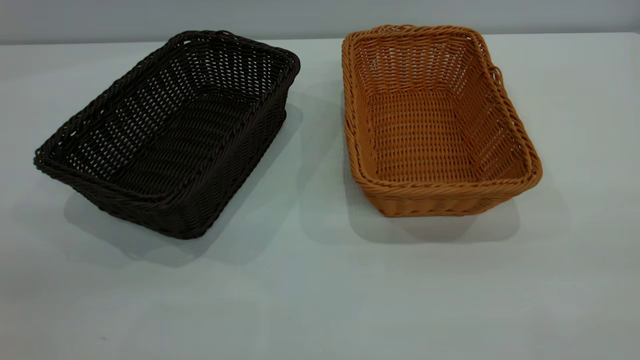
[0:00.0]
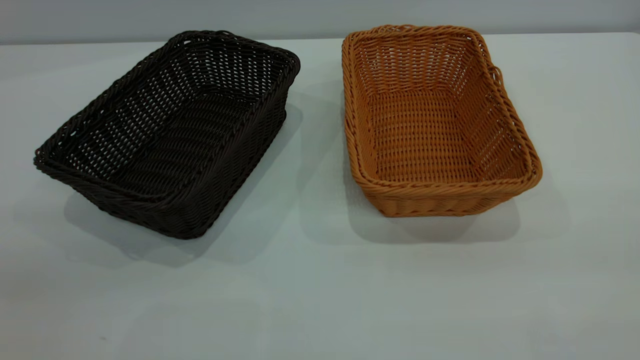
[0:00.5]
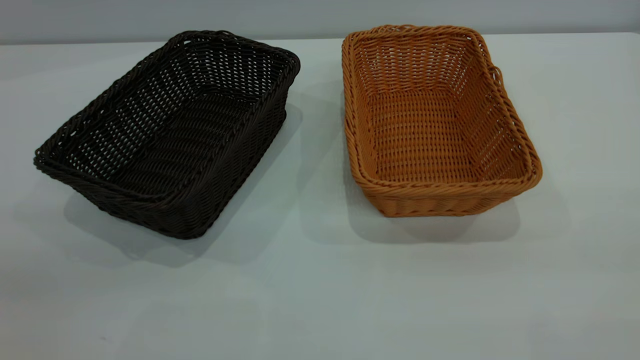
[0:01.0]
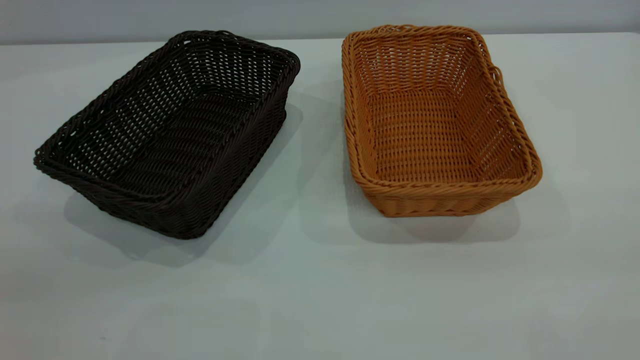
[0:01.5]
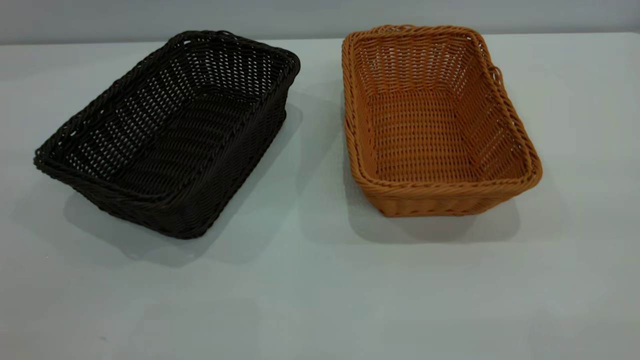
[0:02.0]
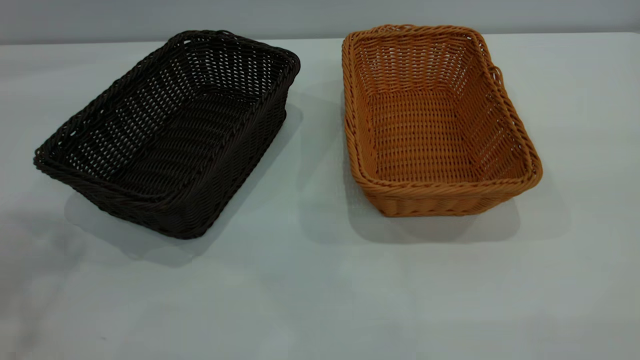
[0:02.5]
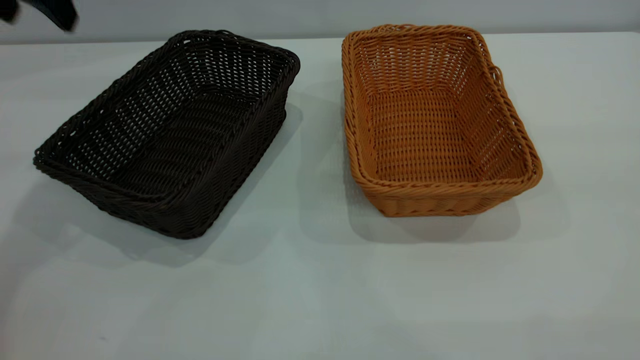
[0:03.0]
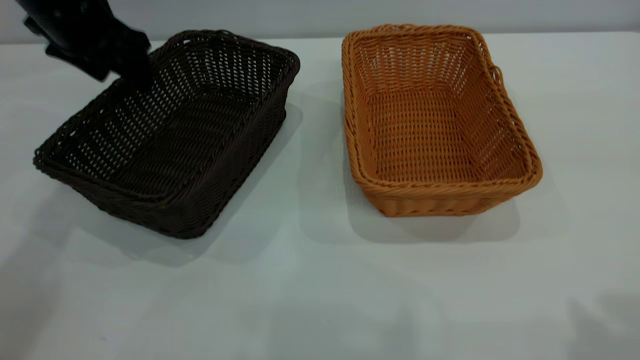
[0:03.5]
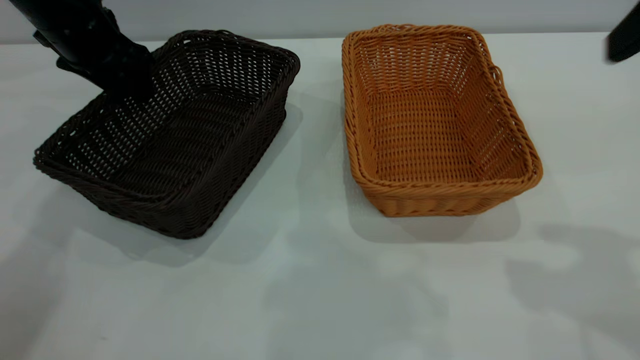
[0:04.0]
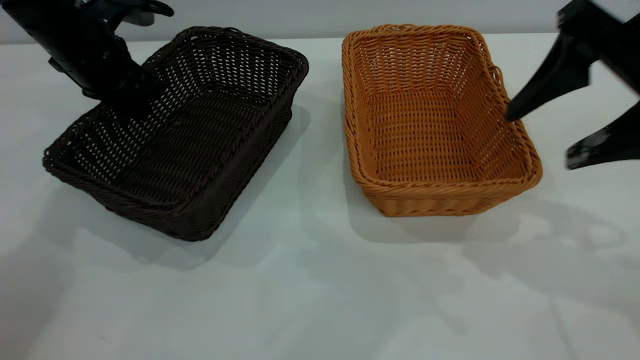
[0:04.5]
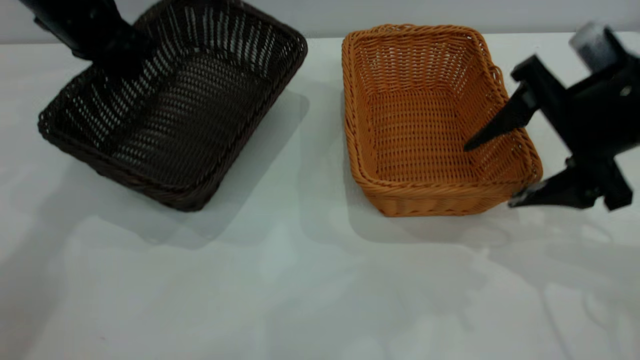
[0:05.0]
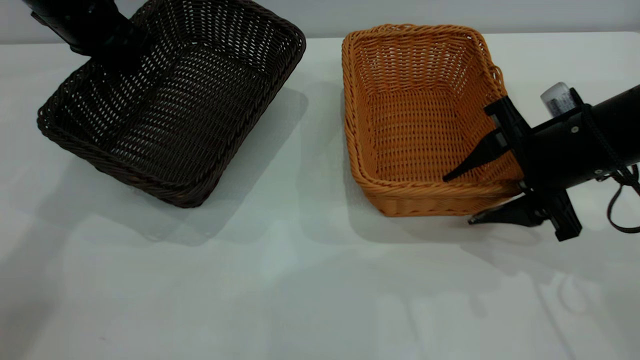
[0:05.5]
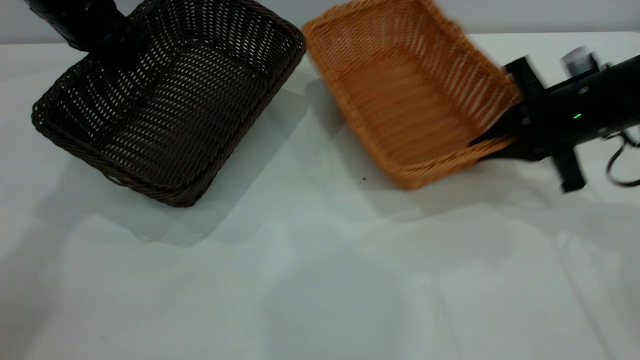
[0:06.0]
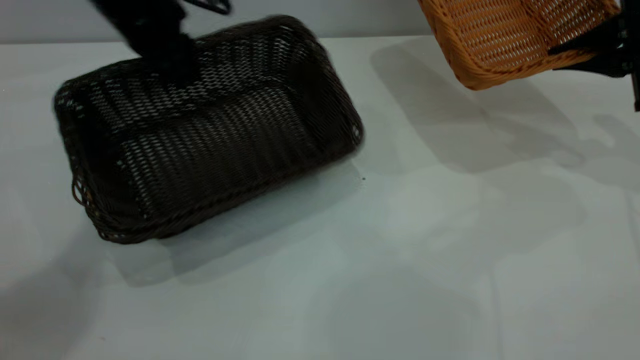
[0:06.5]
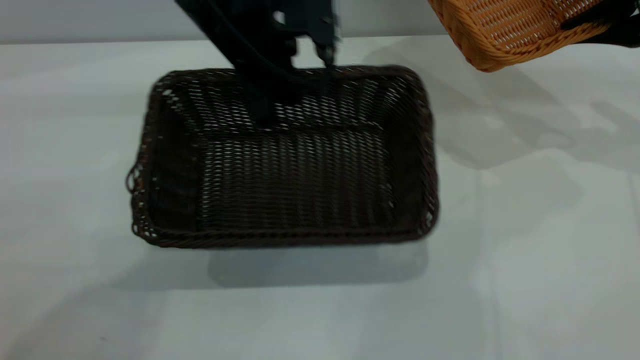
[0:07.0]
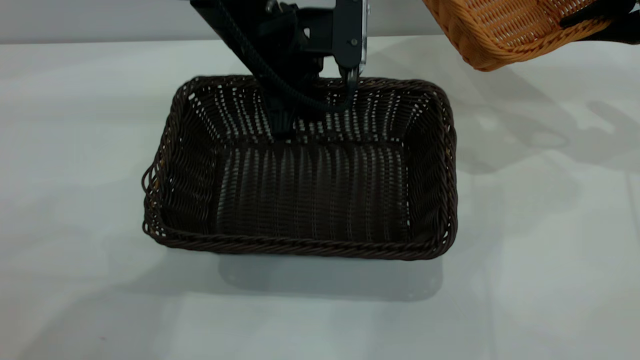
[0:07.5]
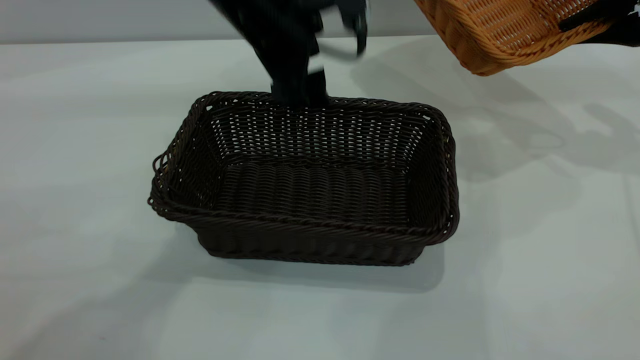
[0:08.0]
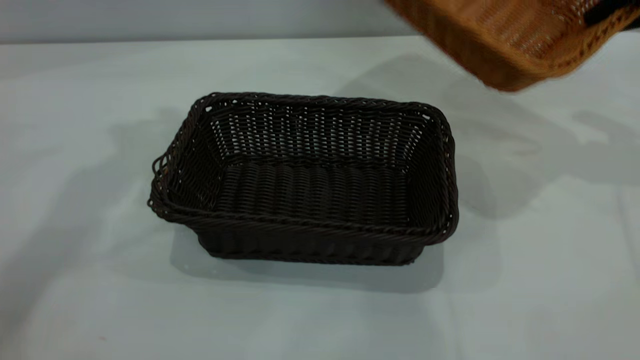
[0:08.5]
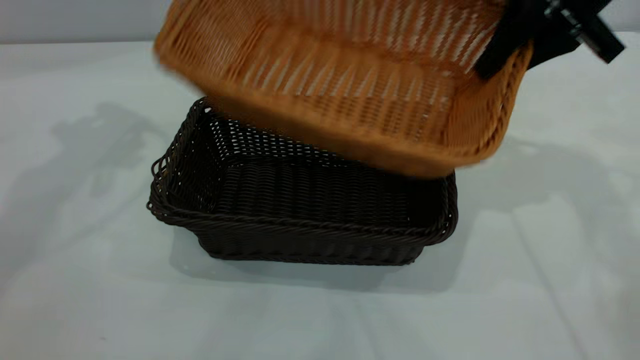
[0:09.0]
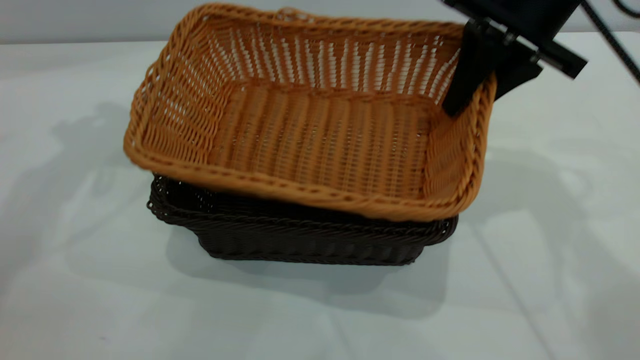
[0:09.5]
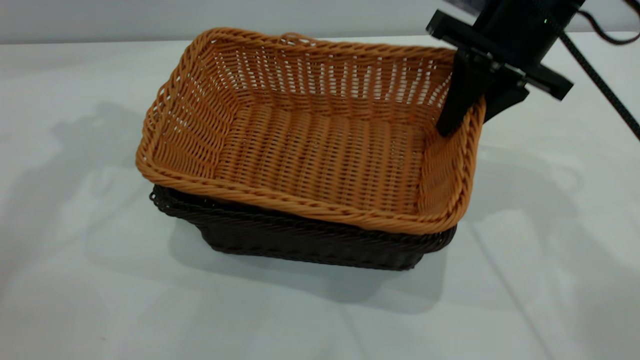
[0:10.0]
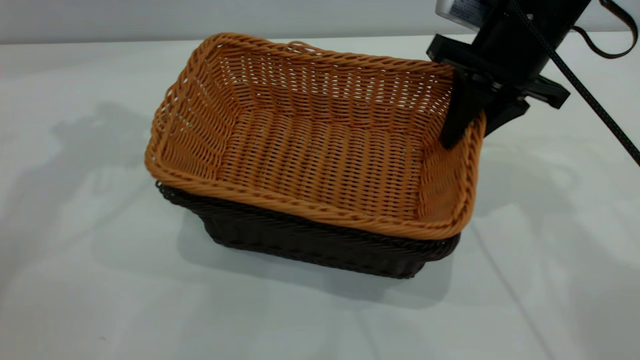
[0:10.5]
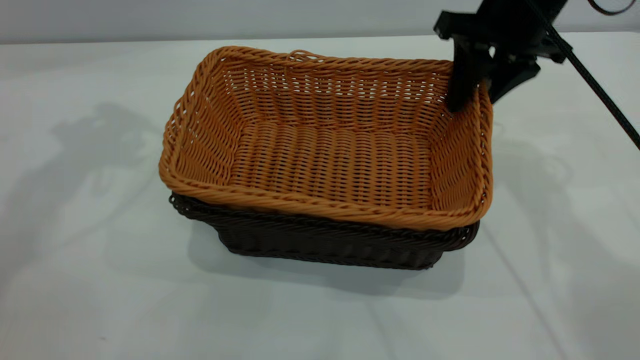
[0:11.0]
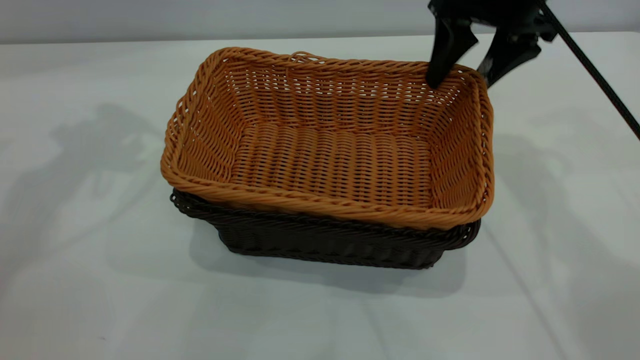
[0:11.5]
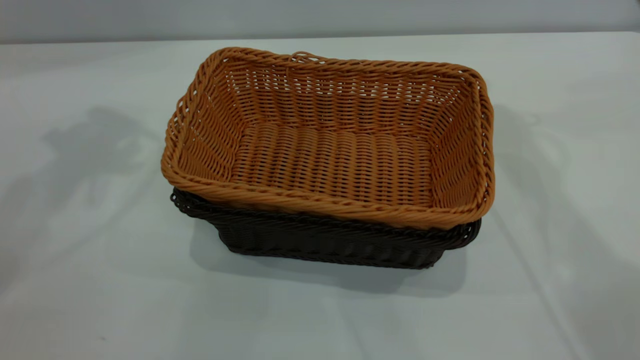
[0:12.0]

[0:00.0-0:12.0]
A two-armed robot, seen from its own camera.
Task of the whole recording: the left gripper grasp the black basket and place it in the center of the table, the right gripper grasp the brown basket and place it inside the black one.
Step, 0:00.0 to 0:06.0: Pick up the light basket with the right gripper.
Step, 0:06.5 to 0:08.0: Move the dark basket to the center of view.
Step, 0:08.5 to 0:11.5: Place the light basket on the dark basket.
0:02.0 to 0:04.0: The left gripper is displaced forward and downward by roughly 40 cm.
0:04.0 to 0:06.0: The left gripper closes its fingers. The right gripper heads downward and forward, covering about 25 cm, and closes up.
0:06.0 to 0:08.0: The left gripper travels to the right by about 20 cm, and opens its fingers. Meanwhile the right gripper is displaced to the right, upward and forward by some 15 cm.
0:08.0 to 0:10.0: The right gripper heads to the left, covering about 20 cm. The left gripper goes some 25 cm to the left and upward.
0:10.0 to 0:12.0: The right gripper is displaced upward and forward by roughly 15 cm, and opens its fingers.

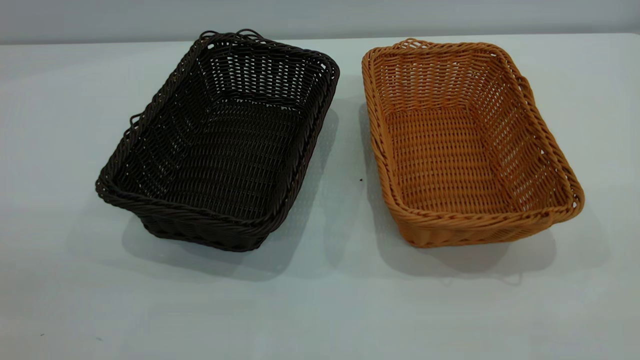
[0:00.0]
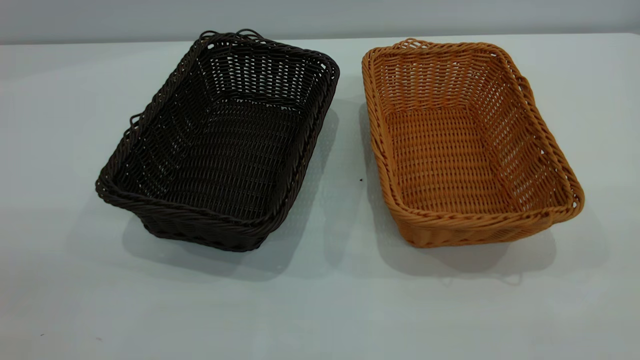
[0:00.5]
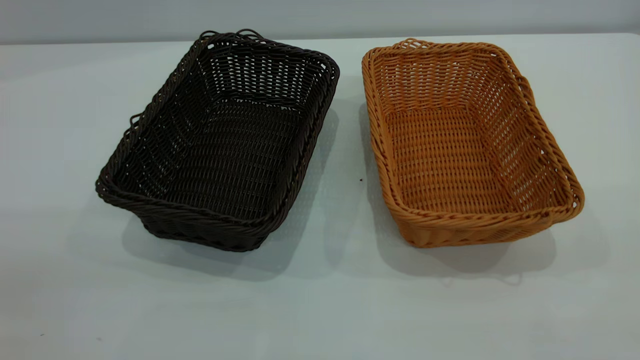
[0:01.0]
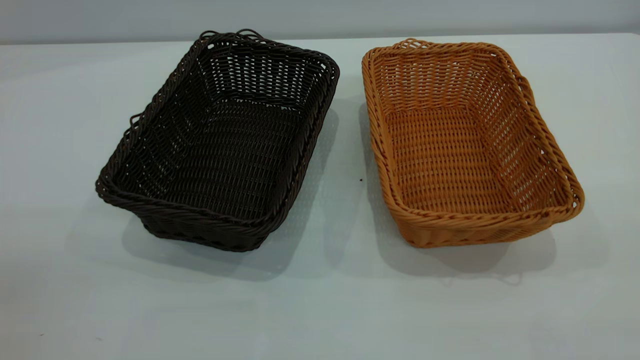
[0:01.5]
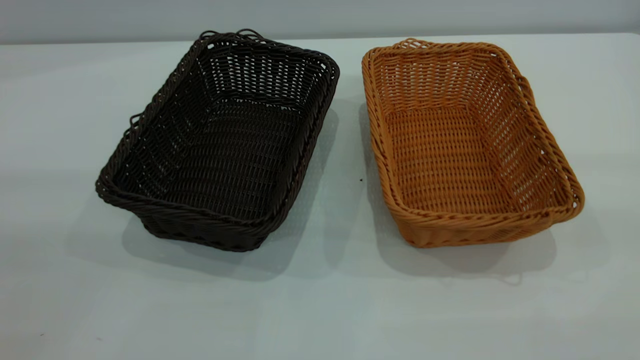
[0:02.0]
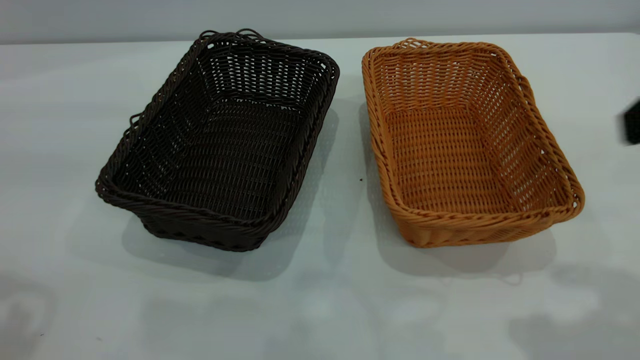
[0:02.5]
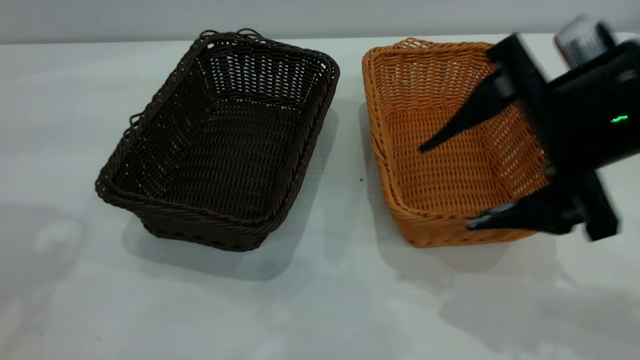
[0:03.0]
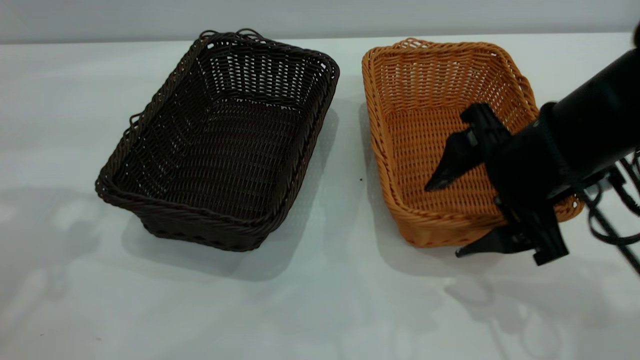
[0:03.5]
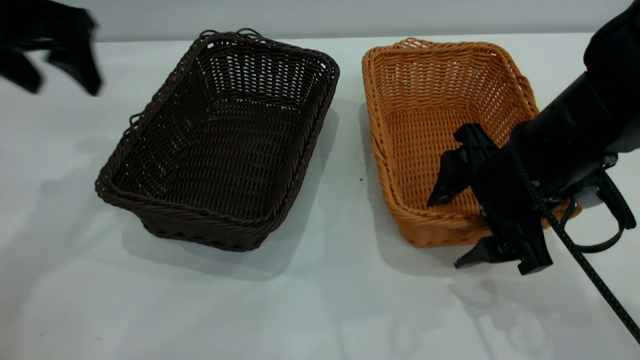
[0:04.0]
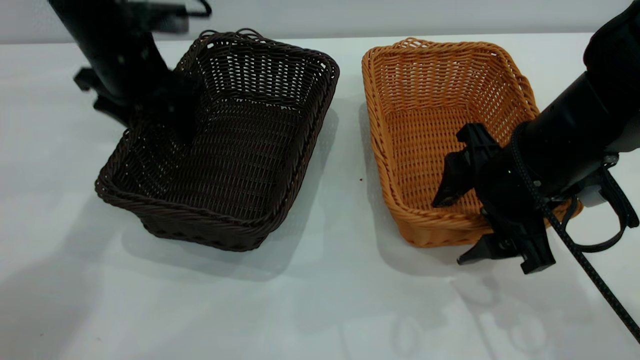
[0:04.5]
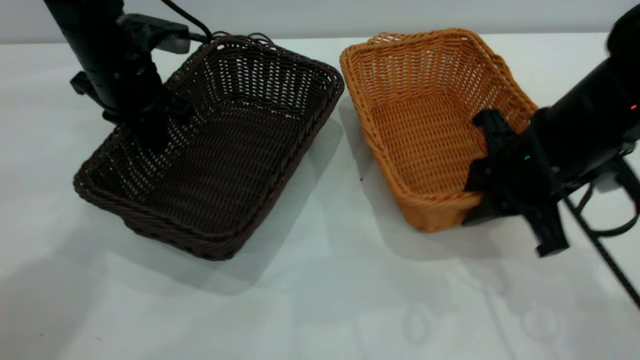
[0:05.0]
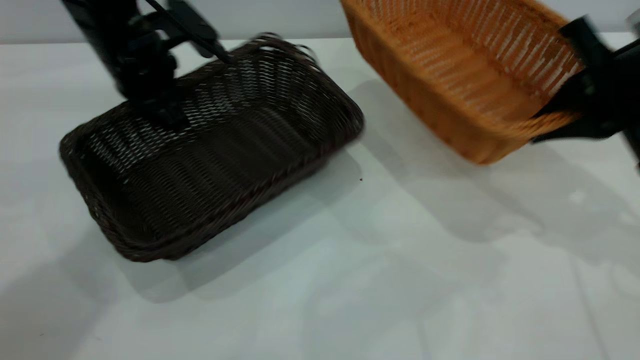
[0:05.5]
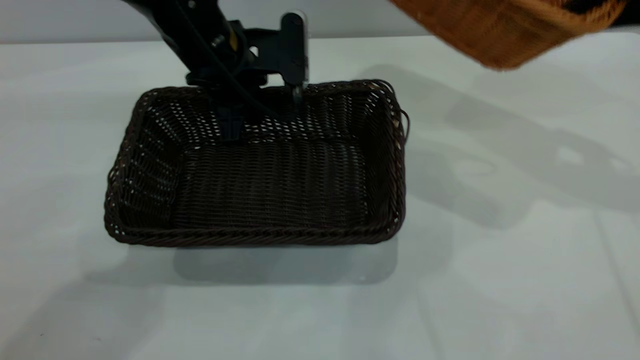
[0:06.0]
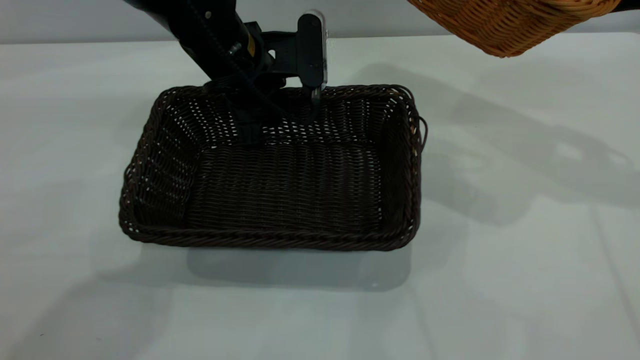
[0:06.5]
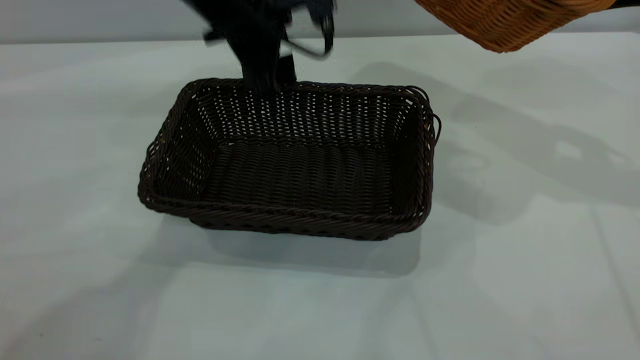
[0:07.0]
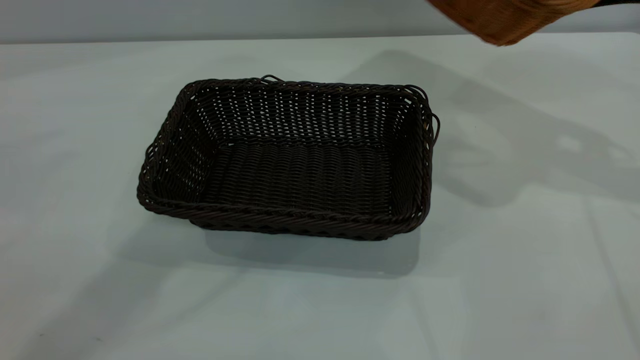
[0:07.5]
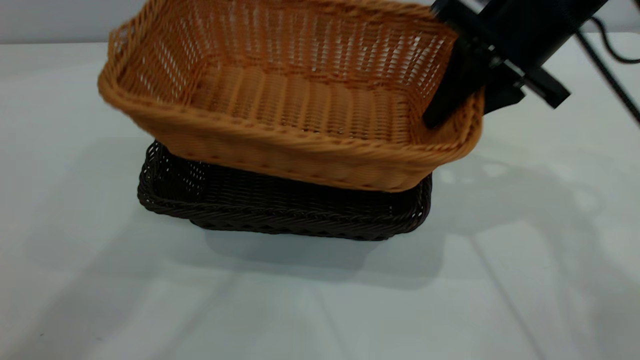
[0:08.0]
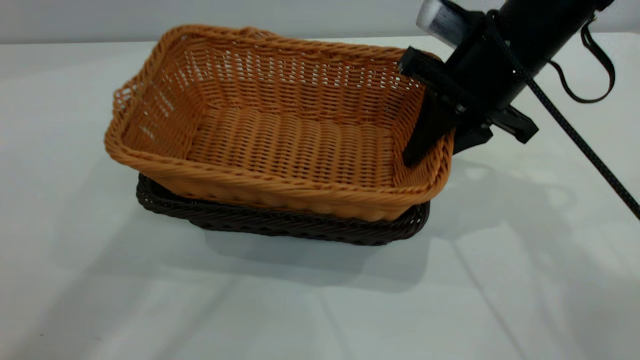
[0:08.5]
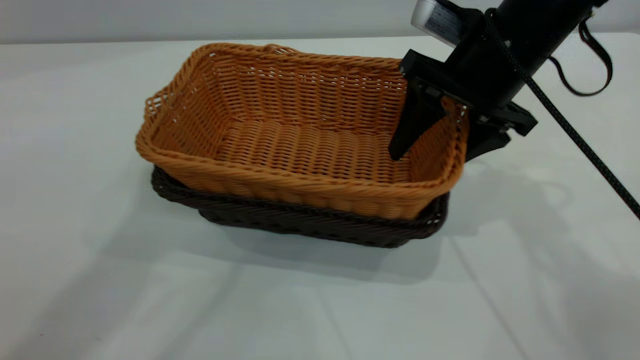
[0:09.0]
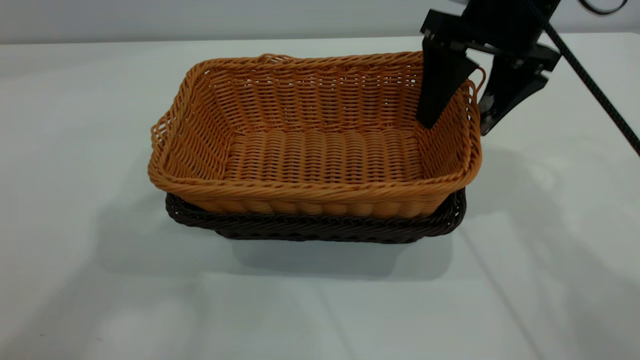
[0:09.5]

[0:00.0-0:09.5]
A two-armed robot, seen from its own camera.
Task of the whole recording: the left gripper grasp the black basket and place it in the center of the table, the right gripper grasp the brown basket and place it inside the black one.
Step, 0:00.0 to 0:05.0: Pick up the light basket with the right gripper.
Step, 0:05.5 to 0:07.0: Move the dark basket to the center of view.
0:02.0 to 0:04.0: The left gripper is displaced forward and downward by some 35 cm, while the right gripper shifts some 35 cm downward, forward and to the left.
0:04.0 to 0:05.5: The left gripper is displaced downward and to the right by about 10 cm, and closes. The right gripper travels to the right and upward by approximately 15 cm, and closes up.
0:05.5 to 0:07.5: The left gripper shifts about 25 cm upward, and opens up; the right gripper is displaced upward and forward by some 10 cm.
0:07.5 to 0:09.5: The left gripper shifts approximately 20 cm backward, upward and to the left. Meanwhile the right gripper heads to the left, covering some 15 cm, and opens up.
